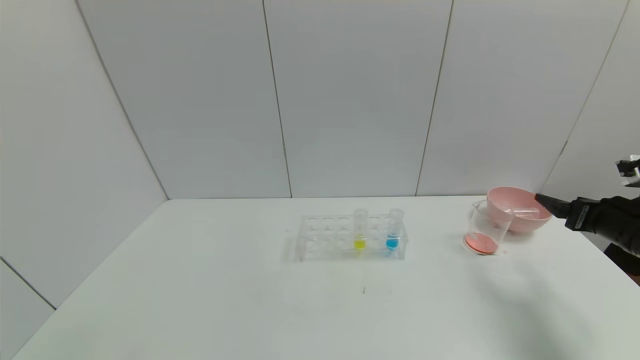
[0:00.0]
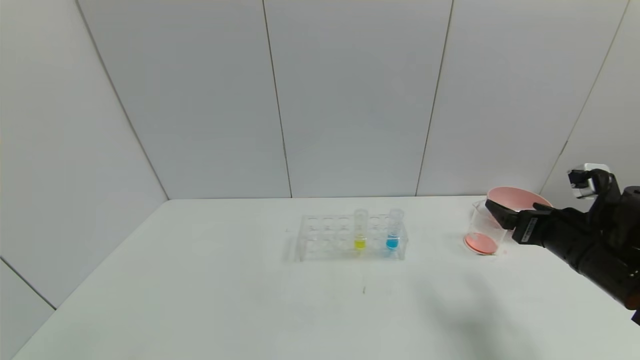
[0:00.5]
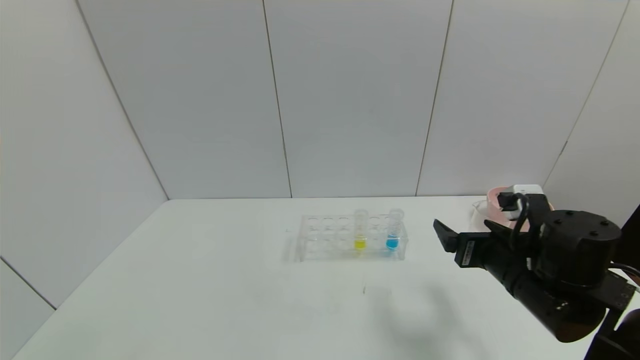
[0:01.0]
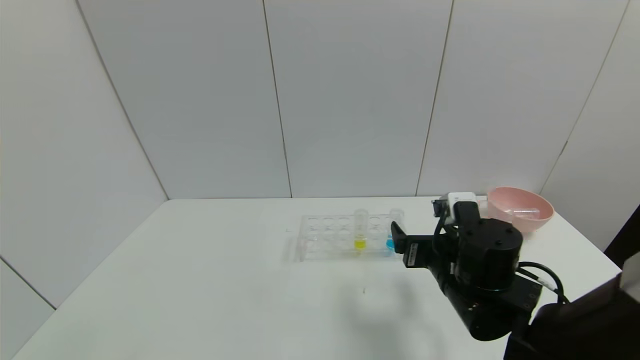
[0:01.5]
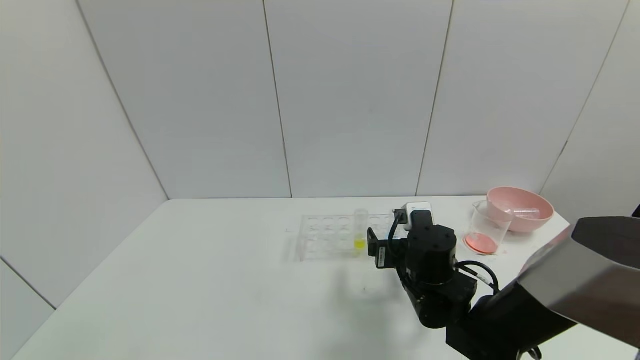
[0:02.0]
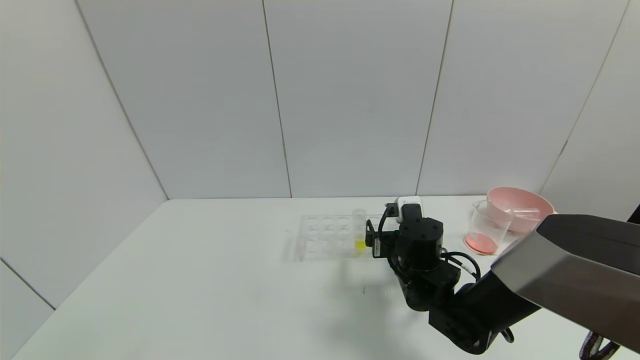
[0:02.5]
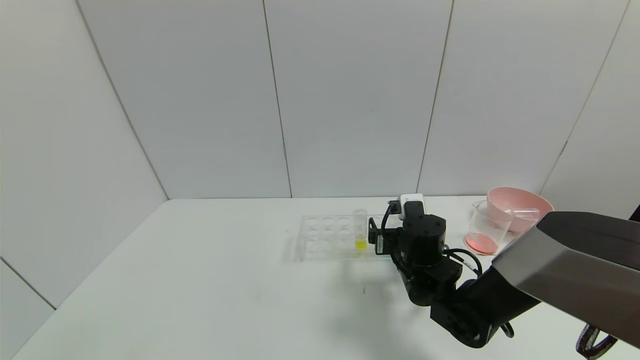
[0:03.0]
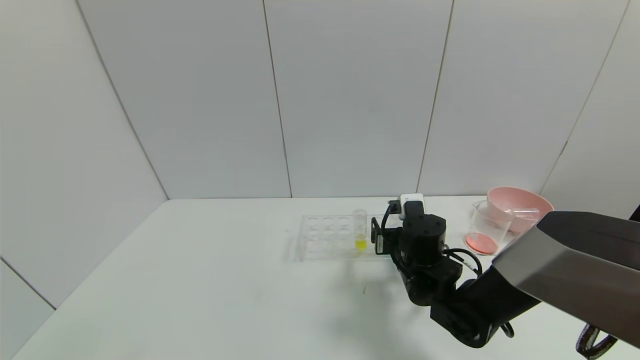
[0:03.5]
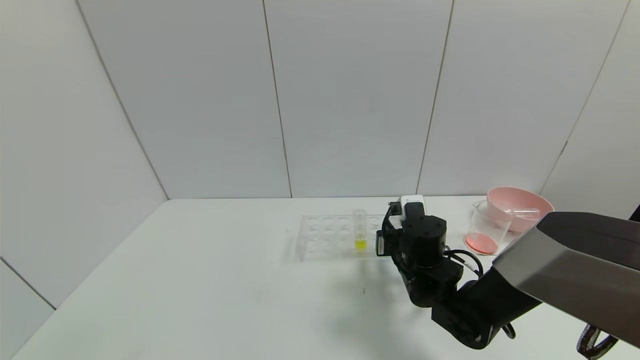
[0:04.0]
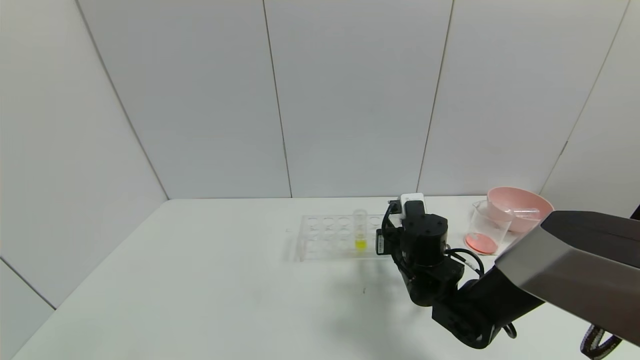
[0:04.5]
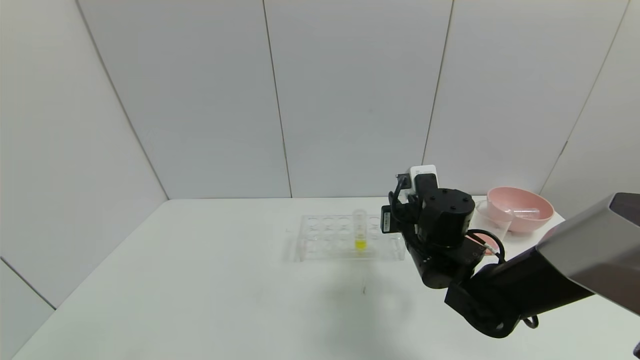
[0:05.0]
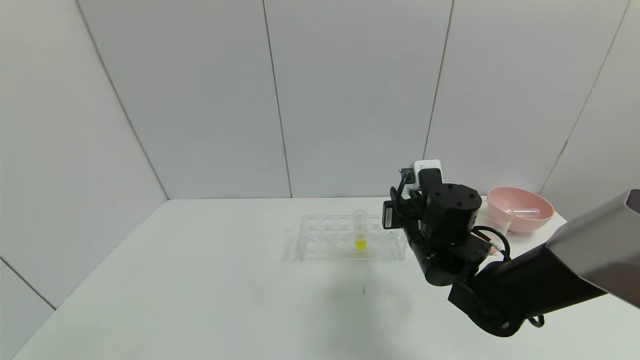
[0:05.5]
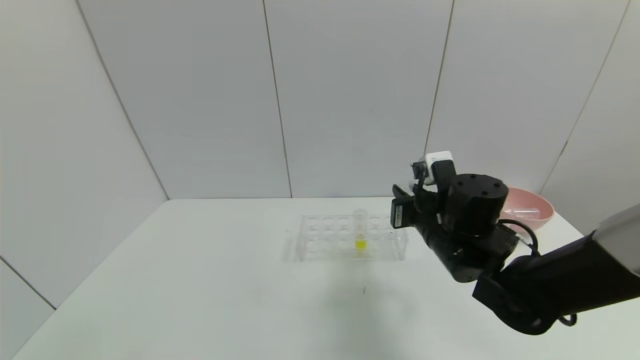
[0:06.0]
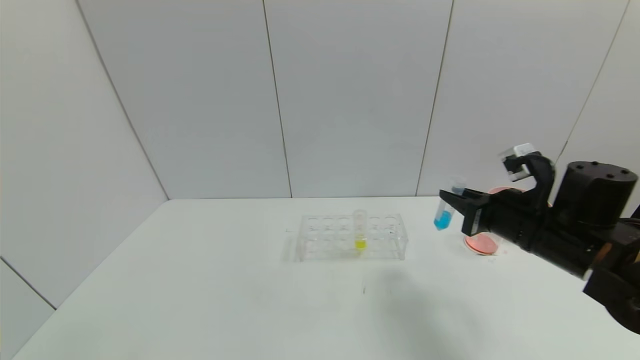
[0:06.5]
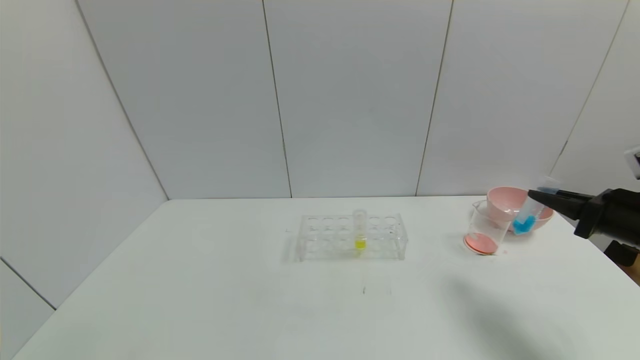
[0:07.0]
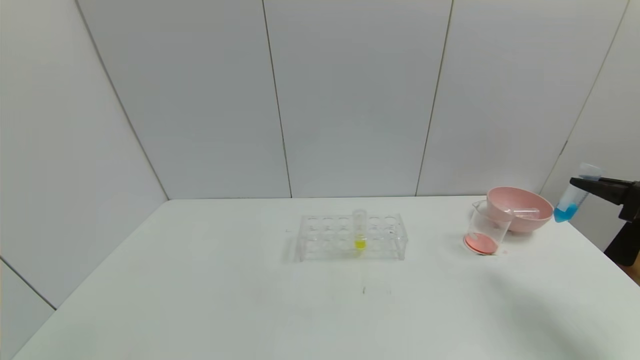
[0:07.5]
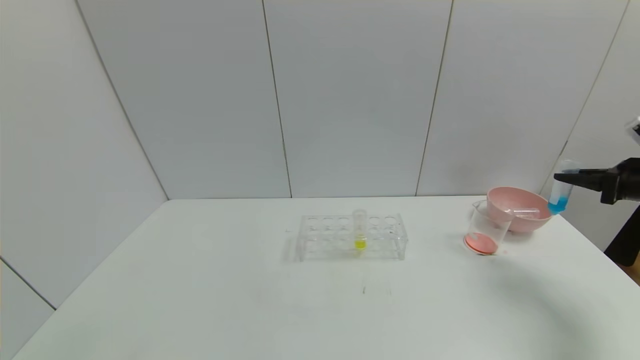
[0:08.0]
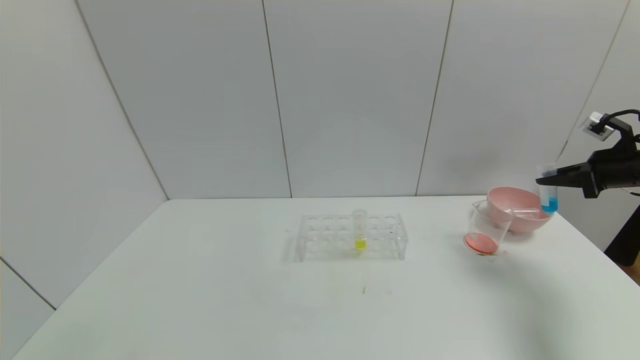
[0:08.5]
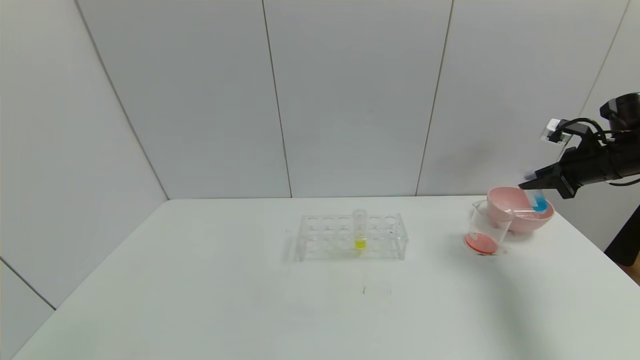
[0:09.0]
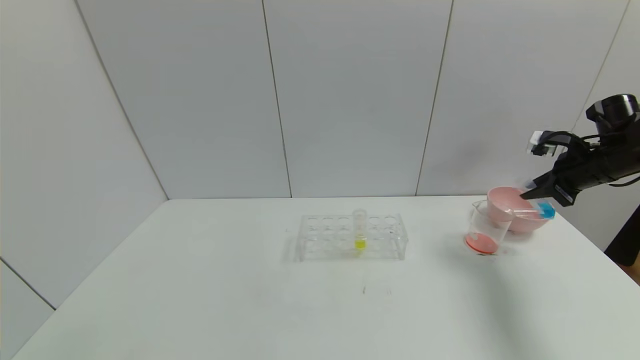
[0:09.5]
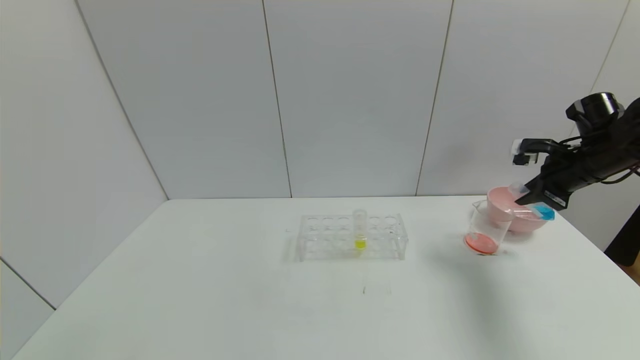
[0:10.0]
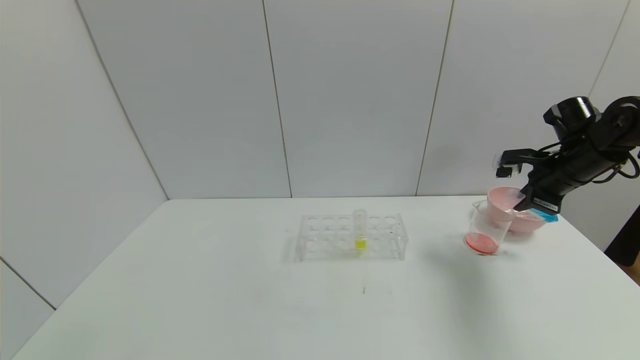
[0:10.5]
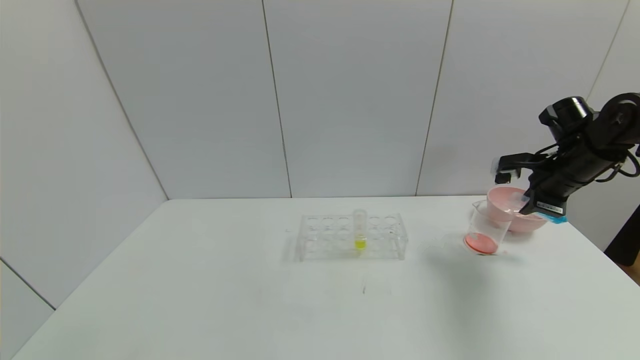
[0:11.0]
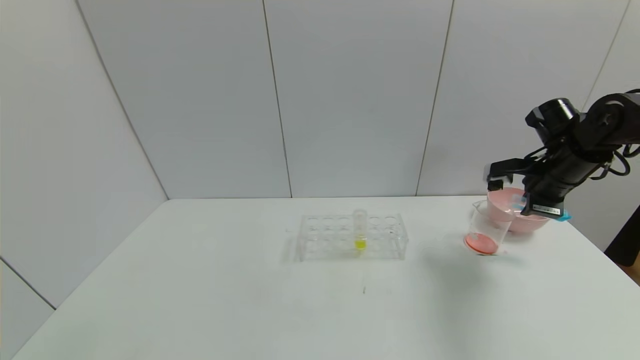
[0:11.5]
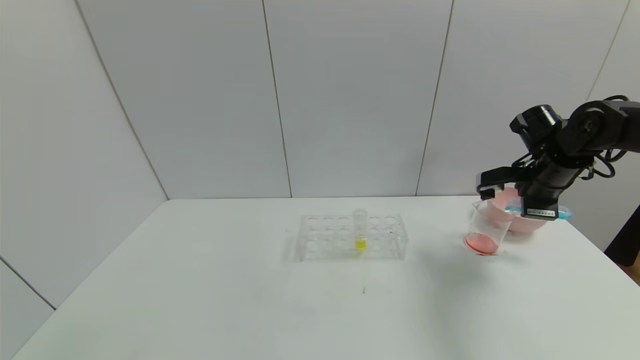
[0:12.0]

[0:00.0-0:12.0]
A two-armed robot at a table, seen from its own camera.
Task of the whole recording: pick up the test tube with red pigment and the test tube with blue pigment by grippers and pour them into the container.
Step, 0:00.0 to 0:04.0: Grasp the blue reagent with the right gripper.
0:00.0 to 0:02.0: The right gripper moves to the left, about 30 cm.
0:02.0 to 0:04.0: The right gripper closes up.
0:04.0 to 0:06.0: The right gripper is displaced upward by roughly 10 cm.
0:06.0 to 0:08.0: The right gripper heads to the right, covering approximately 35 cm.
0:08.0 to 0:10.0: The right gripper travels to the left and forward by approximately 10 cm.
0:10.0 to 0:12.0: The right gripper moves to the left, some 5 cm.

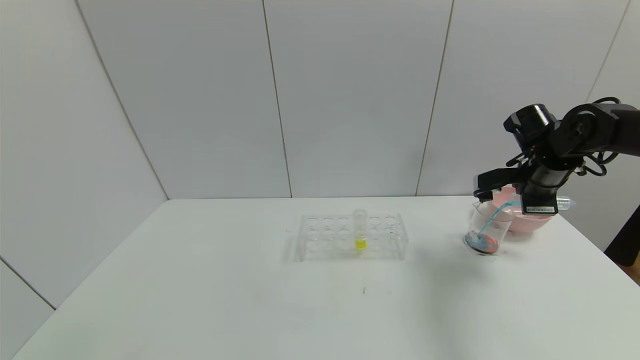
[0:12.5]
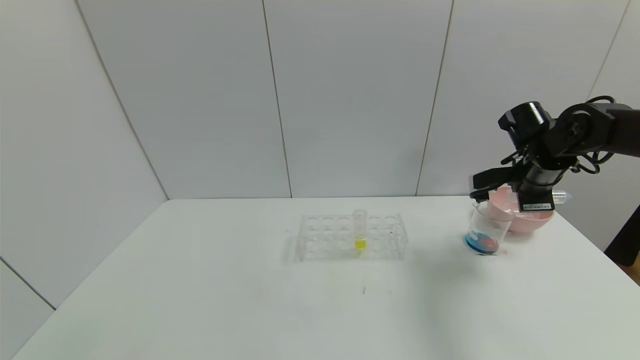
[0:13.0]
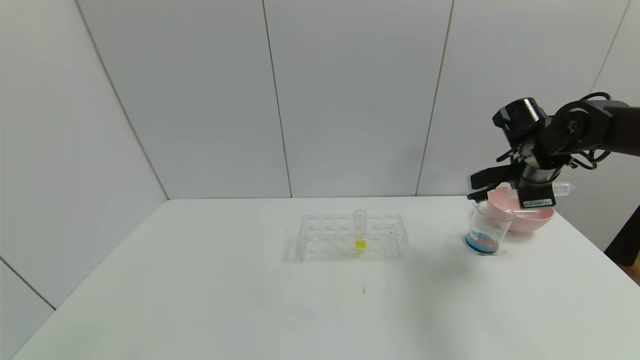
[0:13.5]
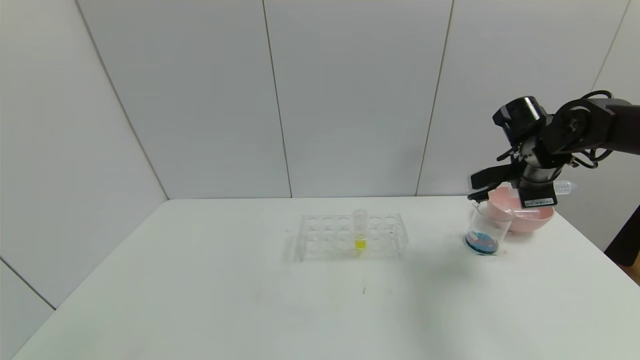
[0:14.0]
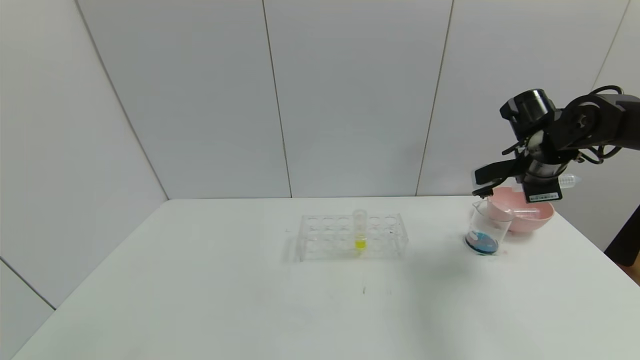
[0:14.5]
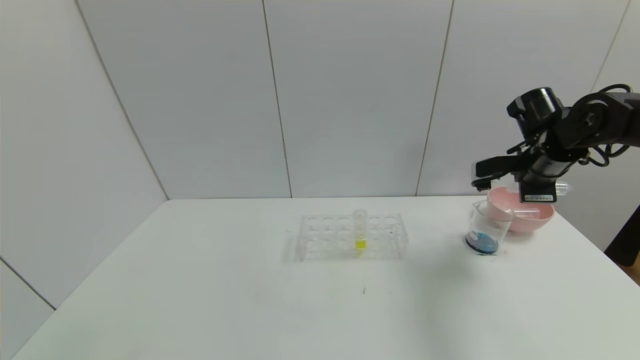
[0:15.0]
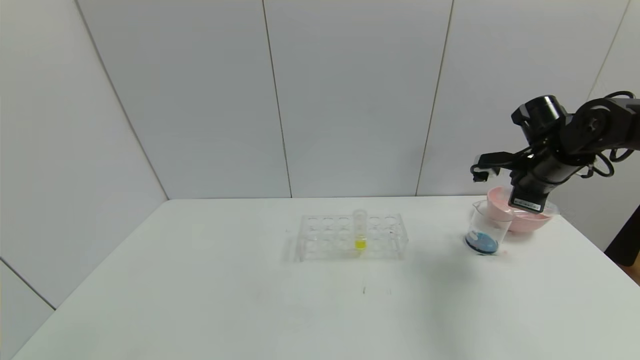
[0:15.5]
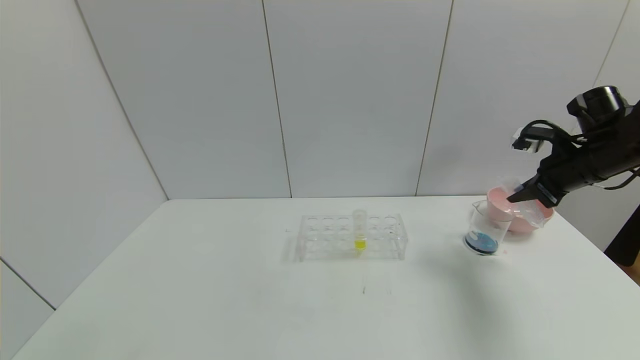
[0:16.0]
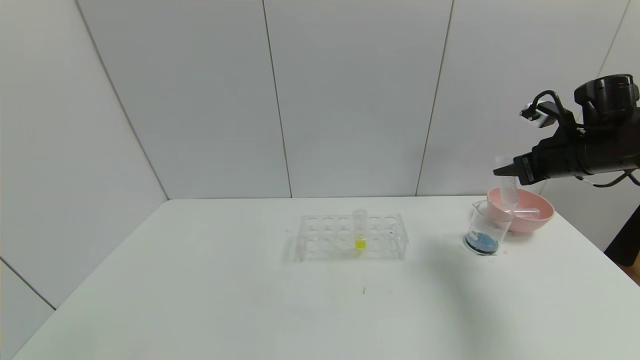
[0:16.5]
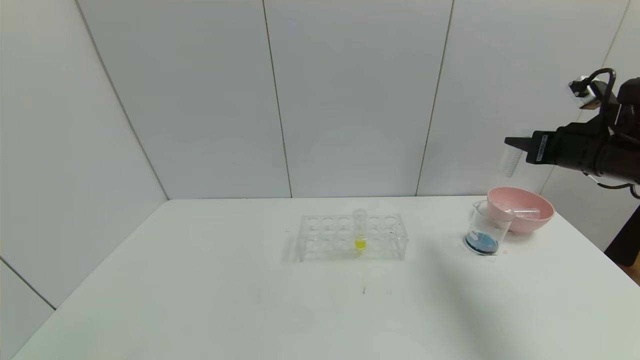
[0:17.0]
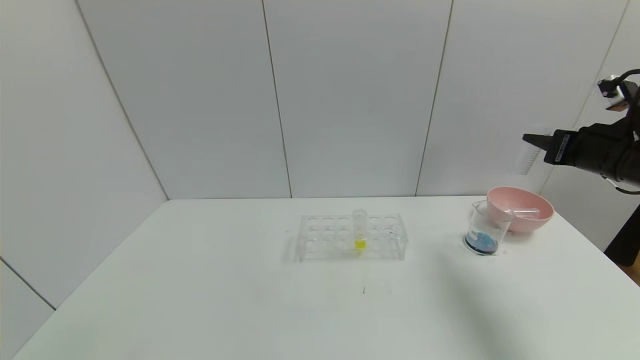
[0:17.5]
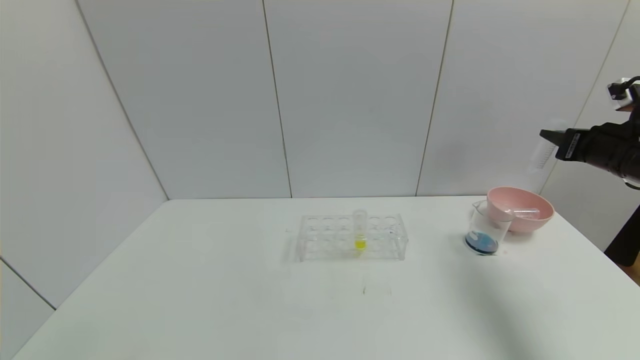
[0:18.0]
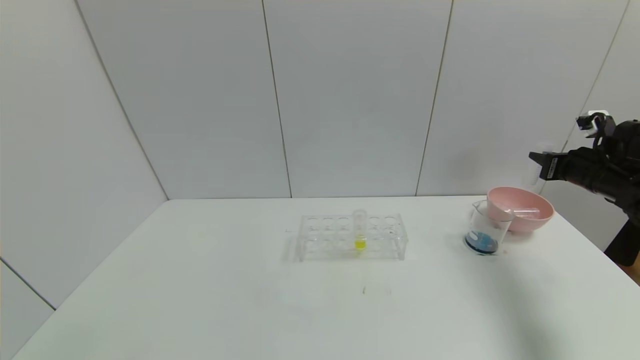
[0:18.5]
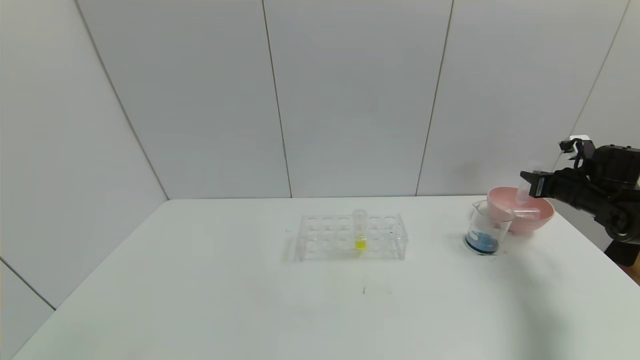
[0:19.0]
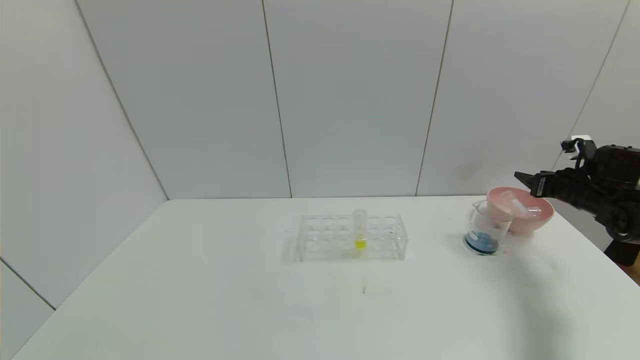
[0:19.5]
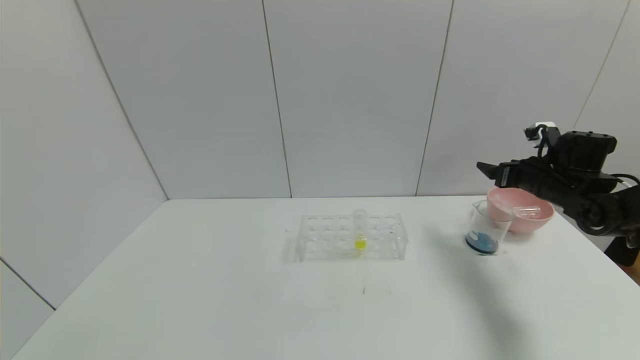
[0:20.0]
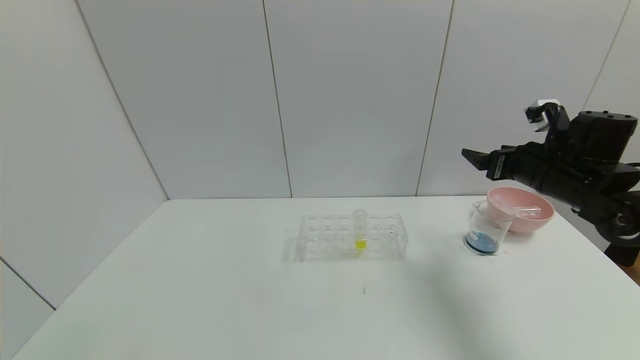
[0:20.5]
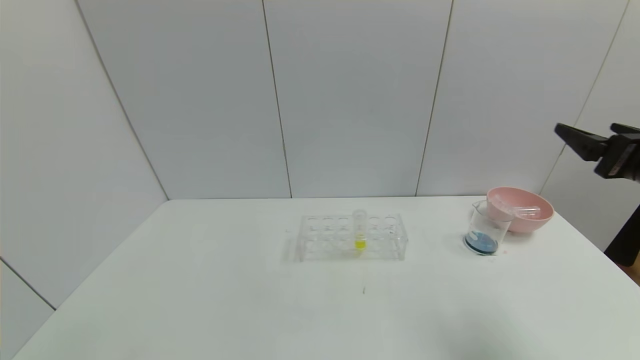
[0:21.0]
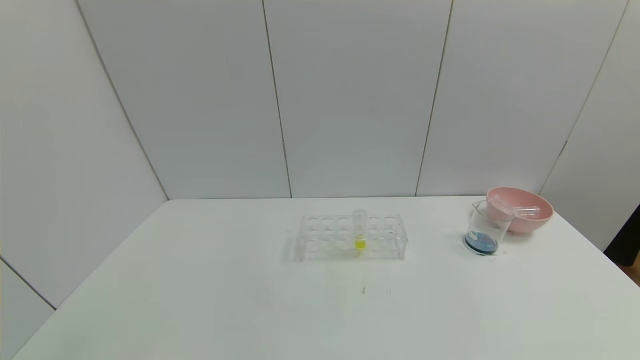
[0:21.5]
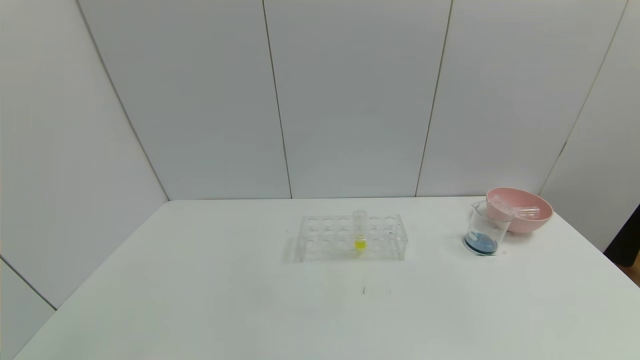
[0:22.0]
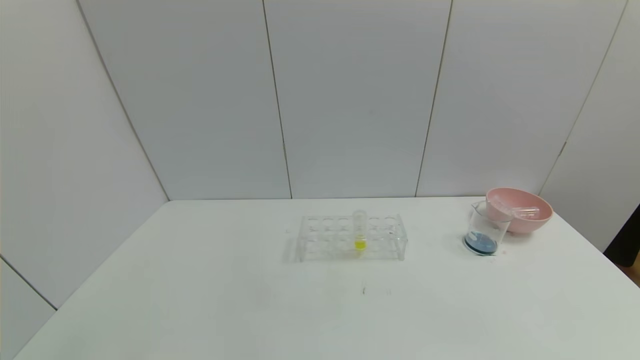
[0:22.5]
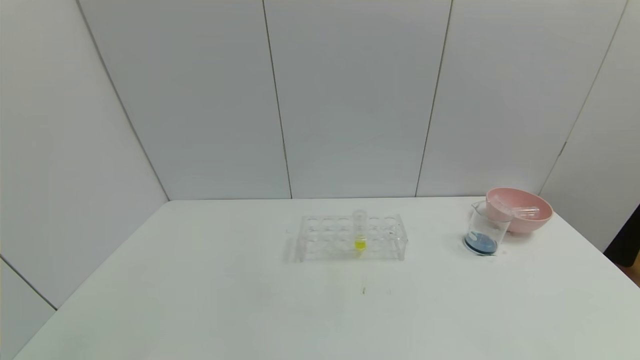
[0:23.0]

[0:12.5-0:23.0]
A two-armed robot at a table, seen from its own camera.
Task of the whole recording: pick up the test tube with red pigment and the test tube with blue pigment by grippers and pour them into the container.
Step, 0:13.5 to 0:19.5: Place the test tube into the bowl with the right gripper.
0:12.5 to 0:14.5: The grippers move only a little.
0:14.5 to 0:16.5: The right gripper ends up approximately 5 cm from where it was.
0:16.5 to 0:19.0: The right gripper shifts roughly 15 cm downward and to the right.
0:19.0 to 0:21.0: The right gripper heads backward, upward and to the left, covering roughly 25 cm, and opens up.
0:21.0 to 0:23.0: The right gripper goes roughly 30 cm backward and downward.
